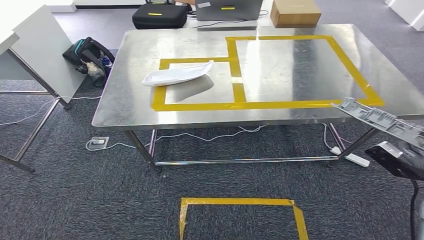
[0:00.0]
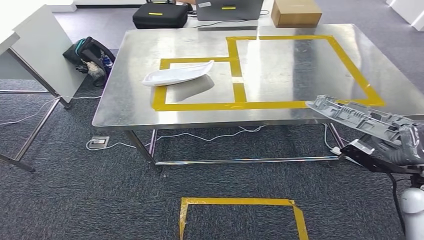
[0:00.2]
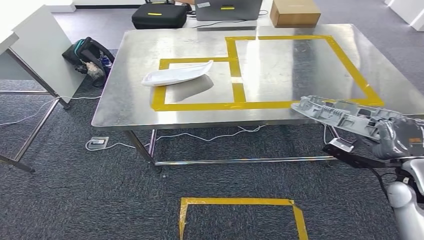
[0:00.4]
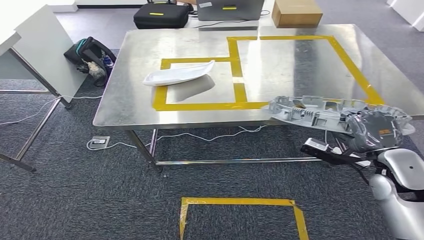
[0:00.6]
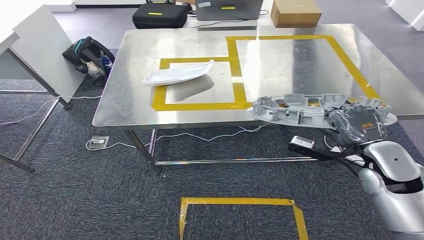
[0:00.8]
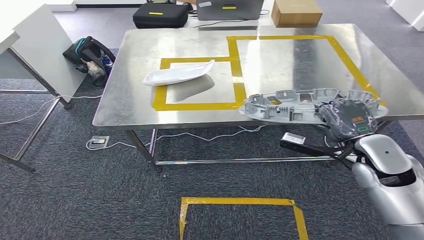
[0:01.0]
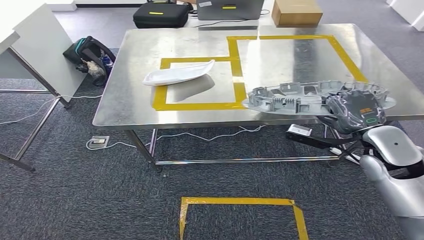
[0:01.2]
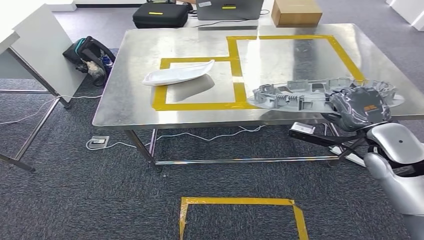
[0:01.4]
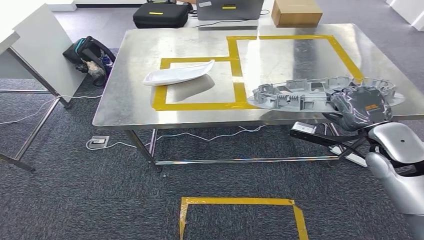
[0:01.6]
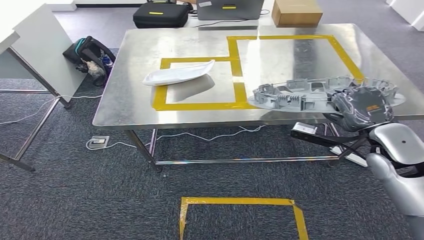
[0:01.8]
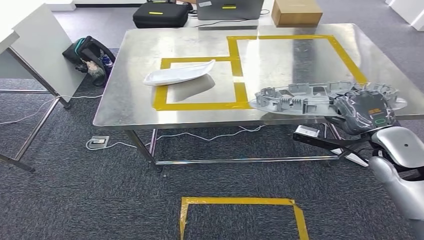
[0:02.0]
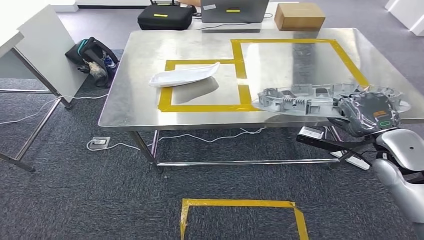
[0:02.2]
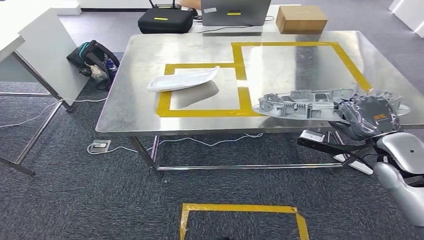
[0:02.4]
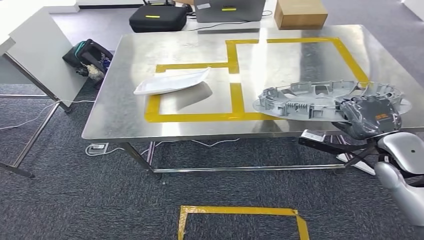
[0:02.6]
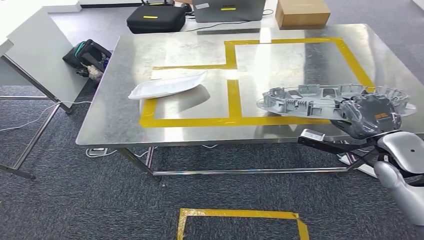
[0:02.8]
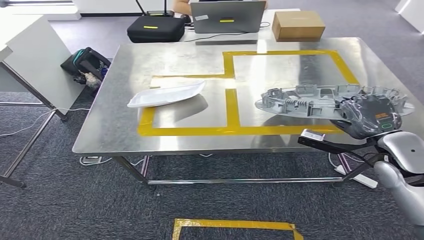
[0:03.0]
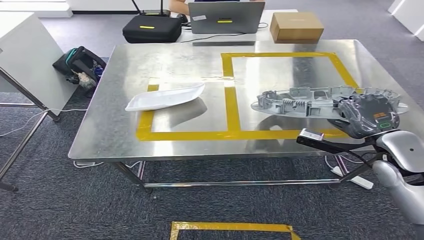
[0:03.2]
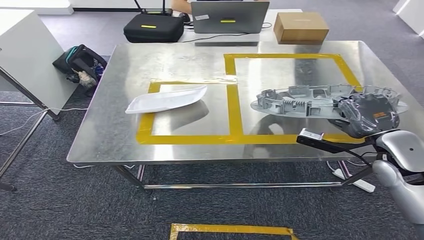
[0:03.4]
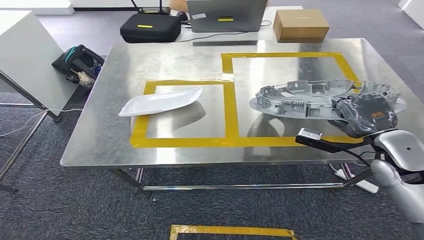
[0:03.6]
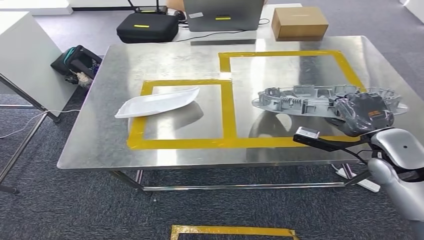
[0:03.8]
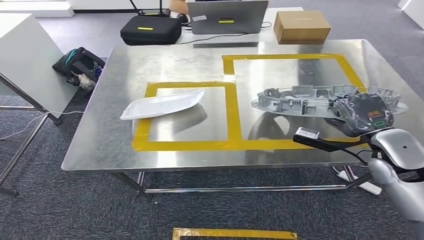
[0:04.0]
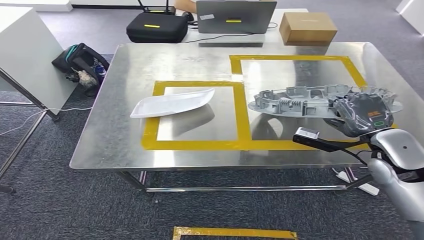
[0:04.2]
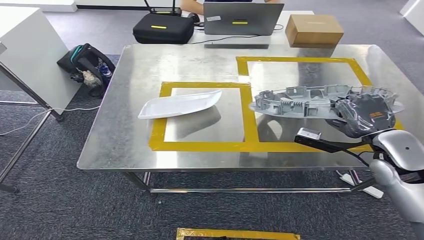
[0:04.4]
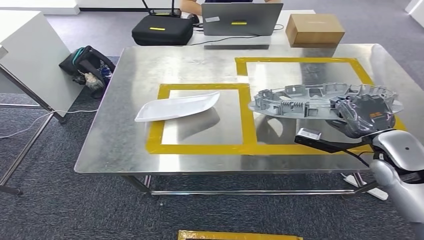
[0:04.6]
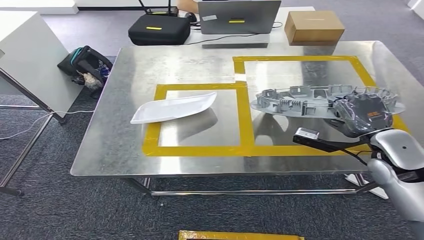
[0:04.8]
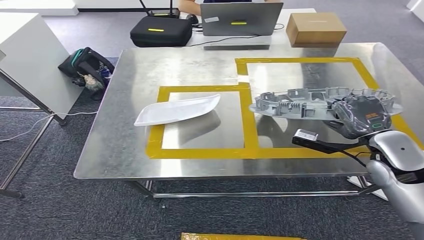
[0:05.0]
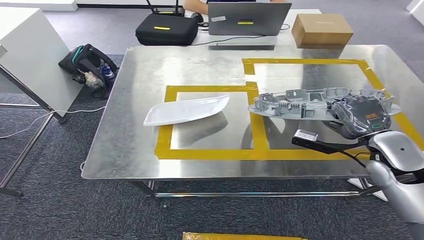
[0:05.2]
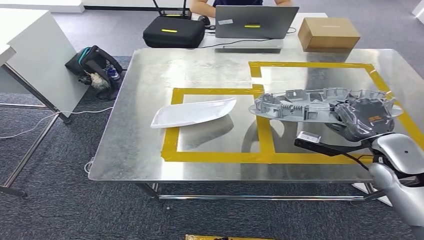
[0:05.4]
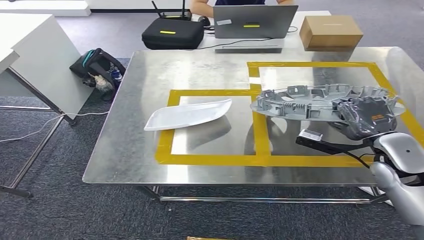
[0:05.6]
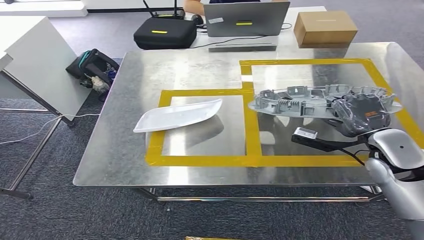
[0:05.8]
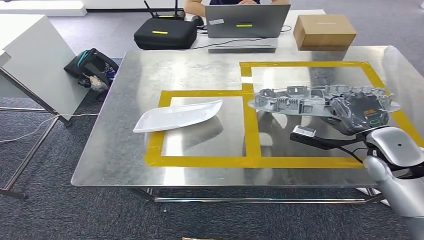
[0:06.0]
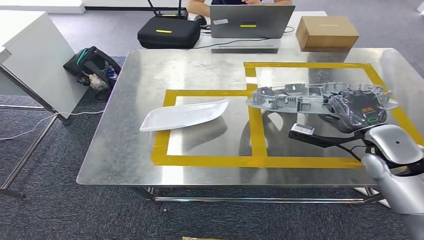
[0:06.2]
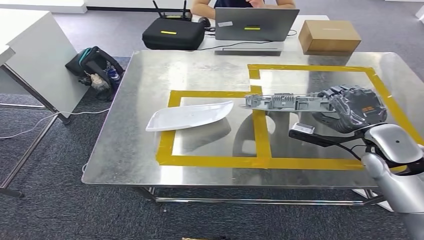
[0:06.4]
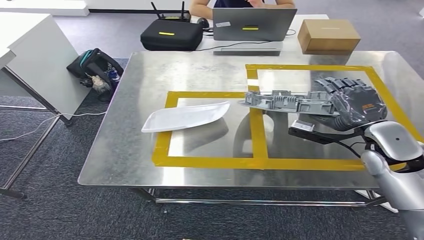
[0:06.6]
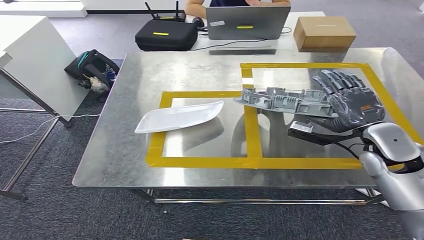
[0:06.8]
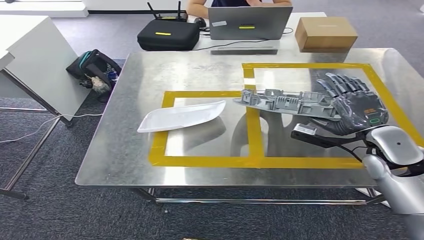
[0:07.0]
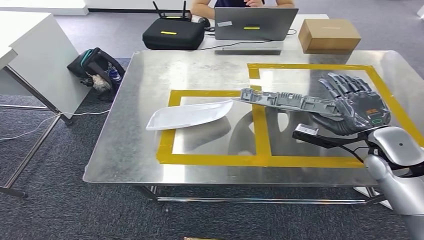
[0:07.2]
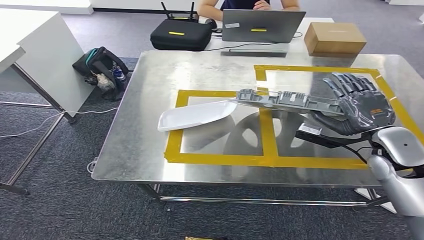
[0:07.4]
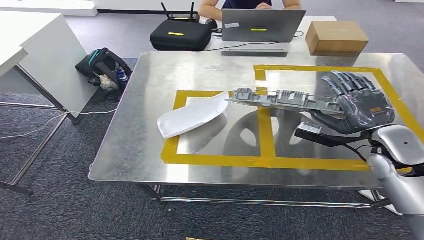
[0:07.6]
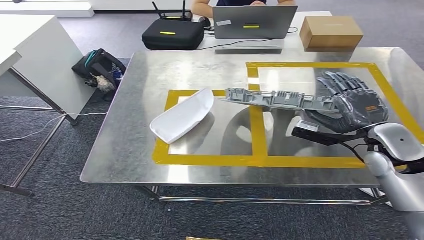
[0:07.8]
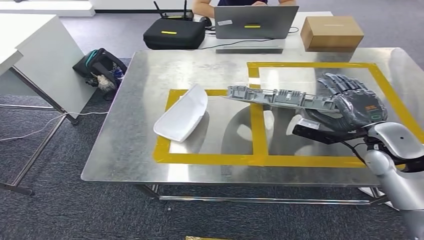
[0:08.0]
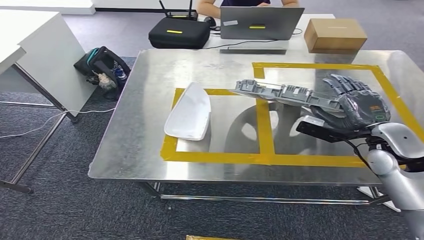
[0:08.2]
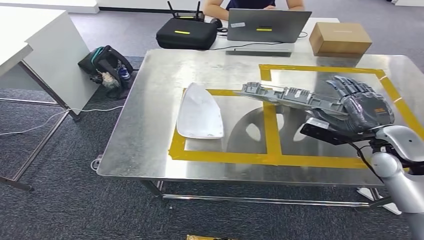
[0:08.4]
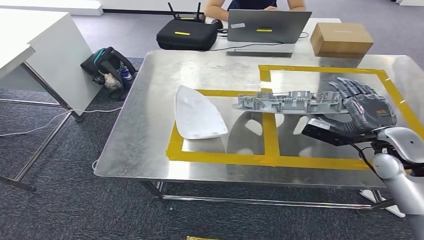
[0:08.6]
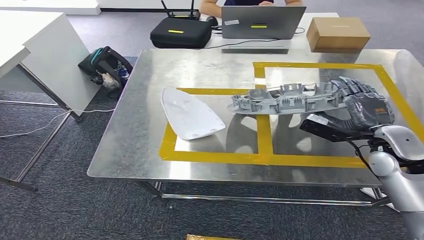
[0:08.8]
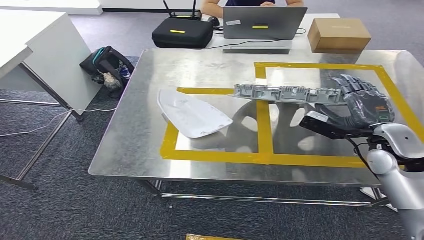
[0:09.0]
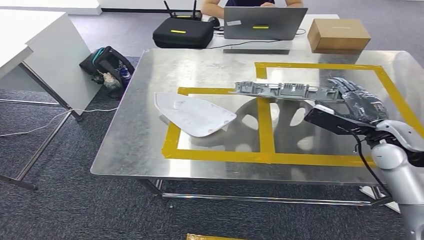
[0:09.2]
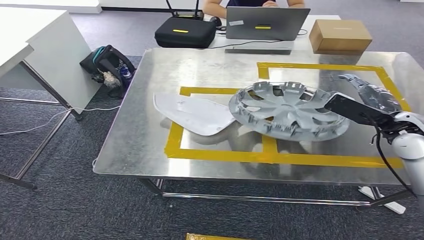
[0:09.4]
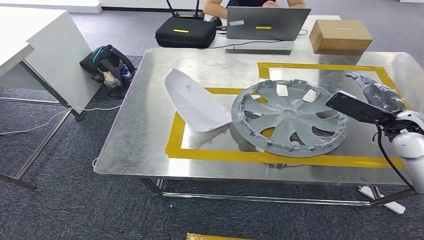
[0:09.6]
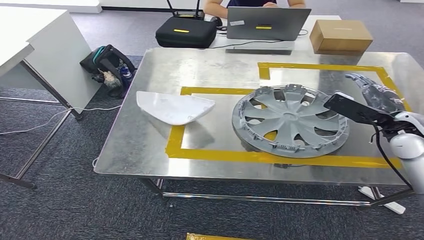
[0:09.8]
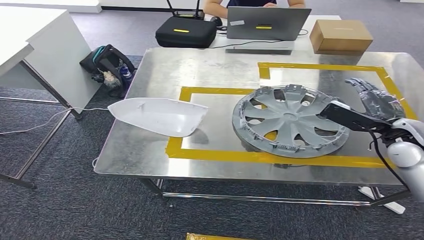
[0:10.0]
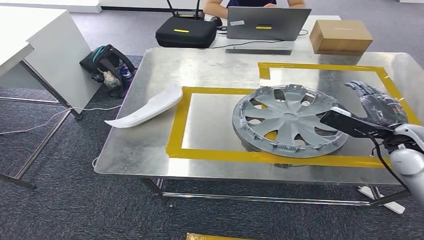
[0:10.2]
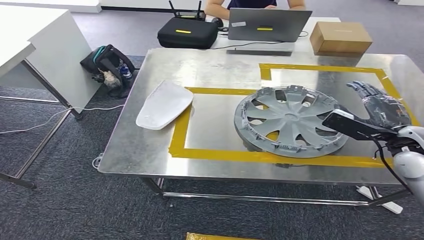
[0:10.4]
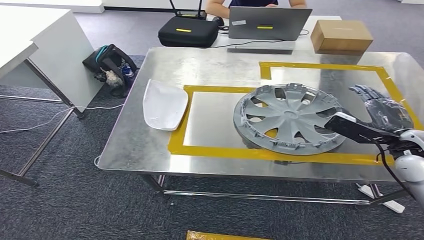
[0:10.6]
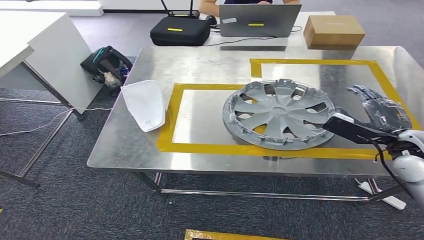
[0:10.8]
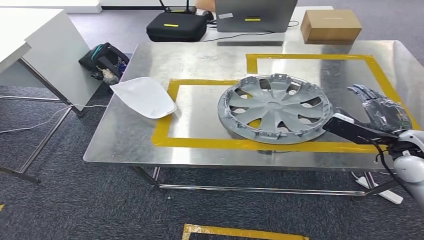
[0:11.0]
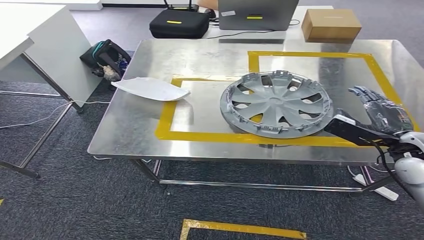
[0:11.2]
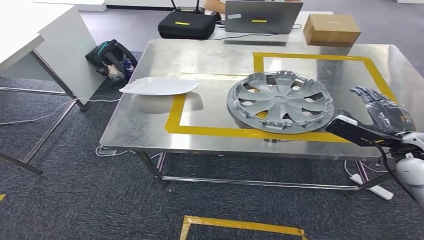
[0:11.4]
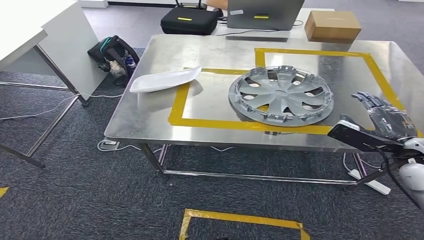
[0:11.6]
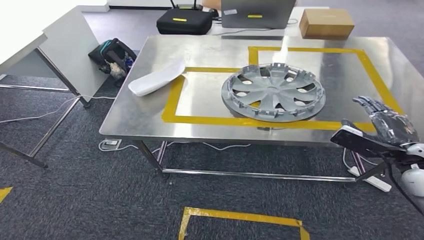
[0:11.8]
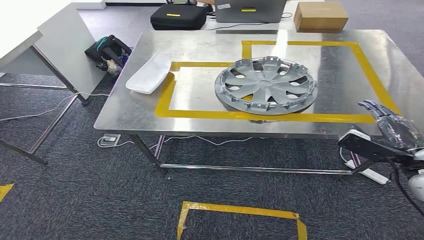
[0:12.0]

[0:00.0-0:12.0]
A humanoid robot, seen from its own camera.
Step, 0:00.0 to 0:10.8: Insert the small parts into the corresponding holes on the workbench.
0:00.0 to 0:01.6: The right hand moves forward, to the left and upward, approximately 15 cm.

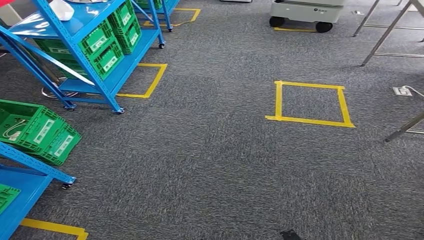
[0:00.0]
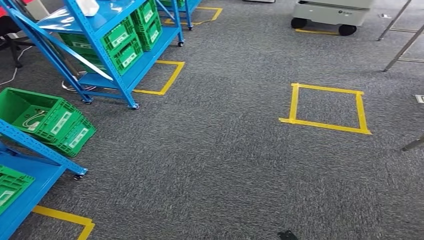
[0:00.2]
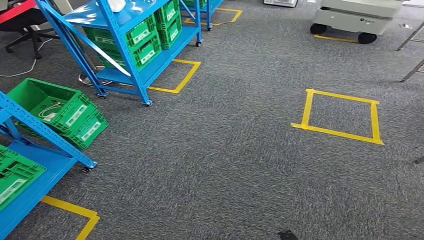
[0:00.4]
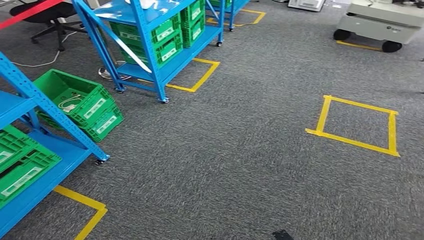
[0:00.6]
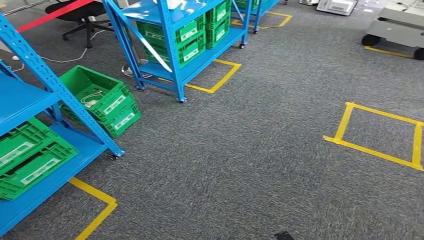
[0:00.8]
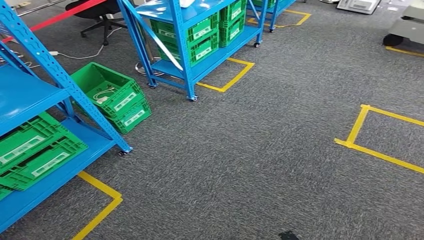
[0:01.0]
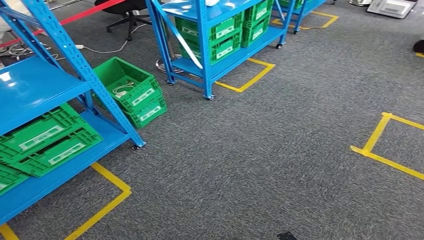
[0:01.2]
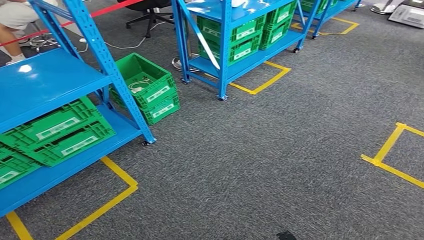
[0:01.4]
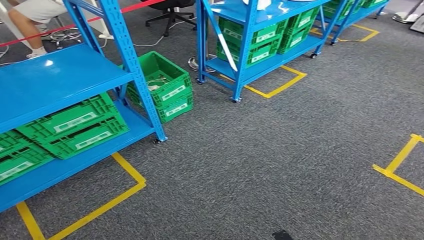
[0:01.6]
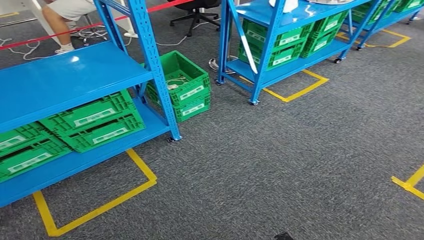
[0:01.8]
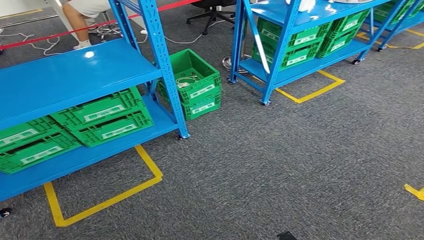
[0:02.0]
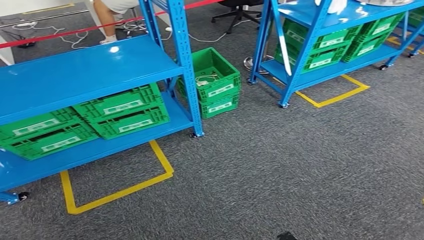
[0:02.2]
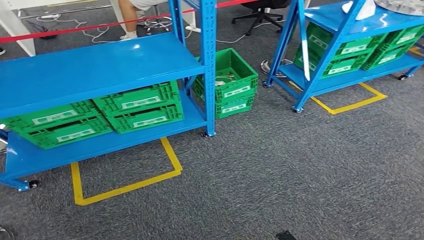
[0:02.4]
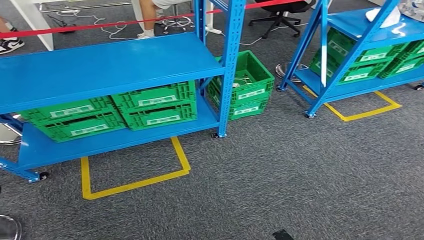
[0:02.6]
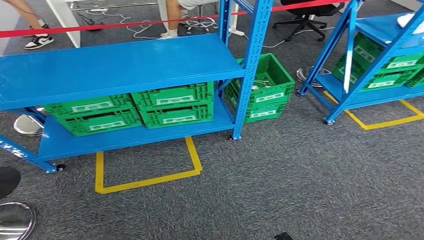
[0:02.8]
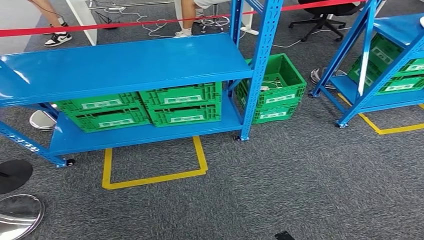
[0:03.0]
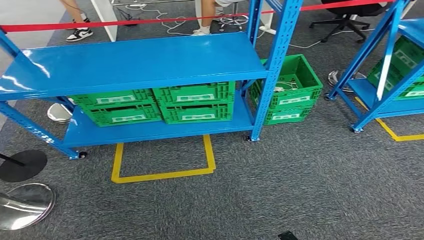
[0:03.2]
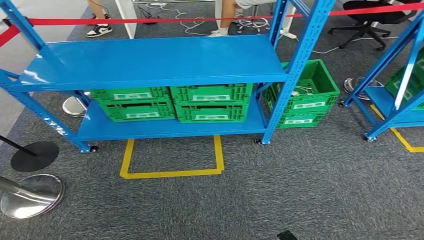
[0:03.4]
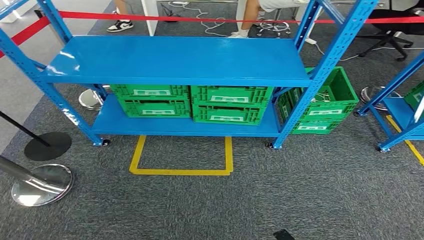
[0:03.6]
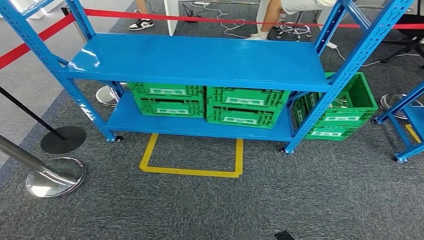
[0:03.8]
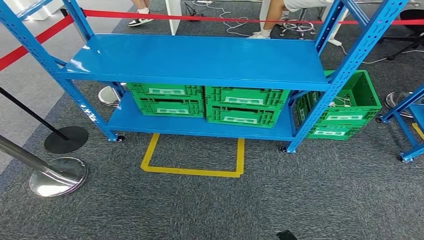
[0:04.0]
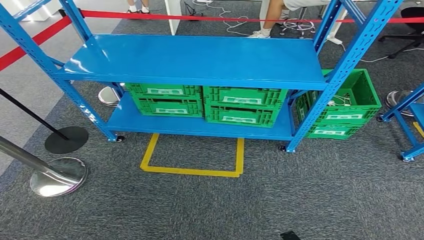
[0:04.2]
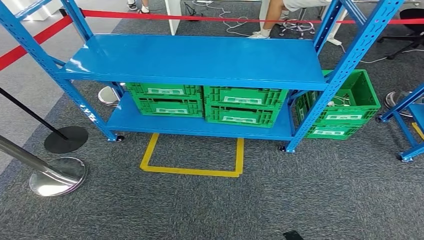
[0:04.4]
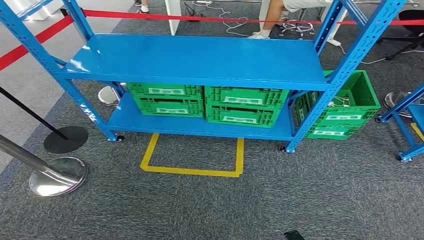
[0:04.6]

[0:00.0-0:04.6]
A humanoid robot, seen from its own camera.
Step, 0:00.0 to 0:04.4: Move to the initial position of the workbench.
